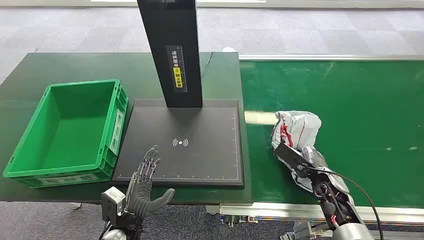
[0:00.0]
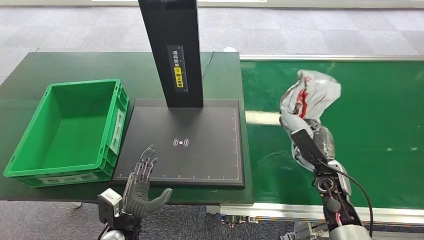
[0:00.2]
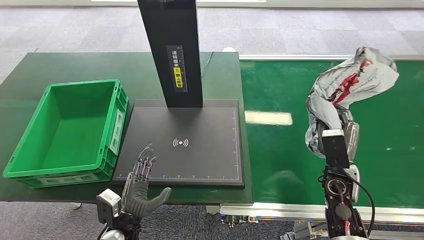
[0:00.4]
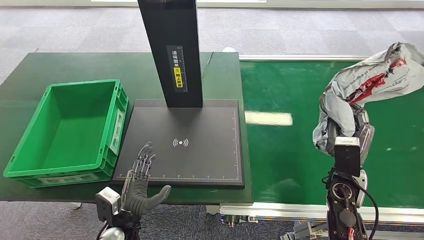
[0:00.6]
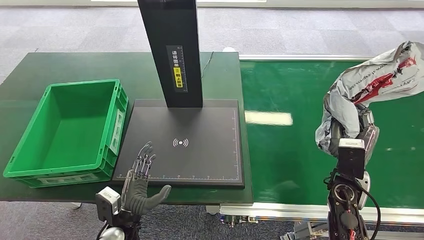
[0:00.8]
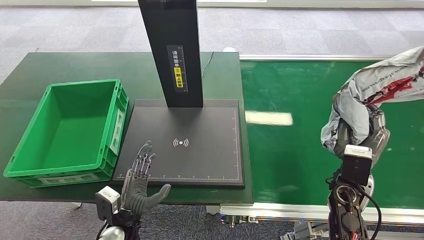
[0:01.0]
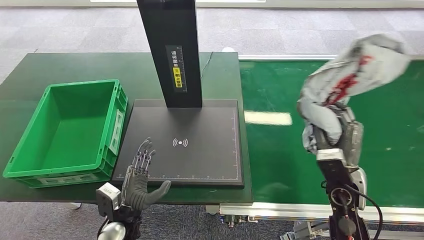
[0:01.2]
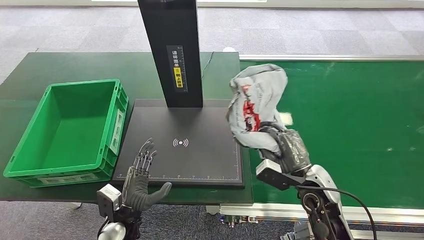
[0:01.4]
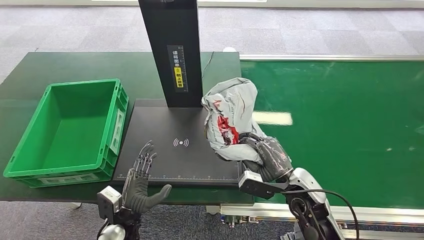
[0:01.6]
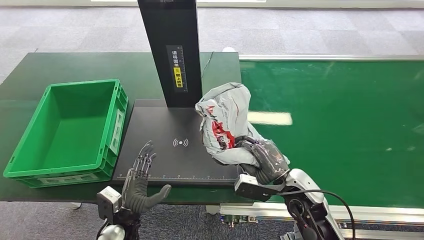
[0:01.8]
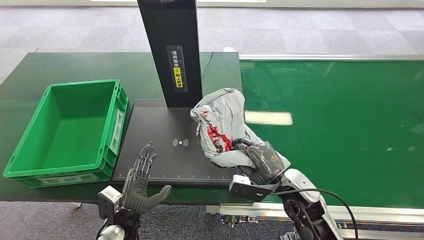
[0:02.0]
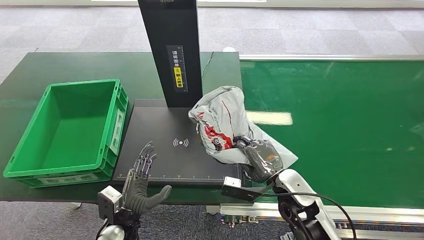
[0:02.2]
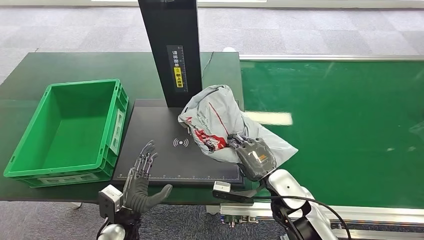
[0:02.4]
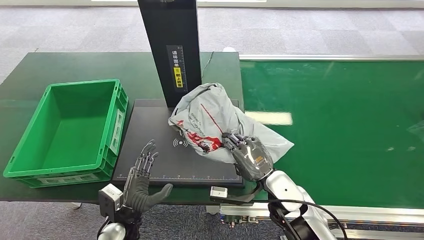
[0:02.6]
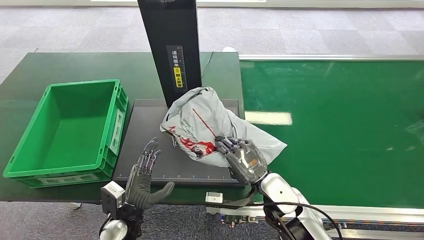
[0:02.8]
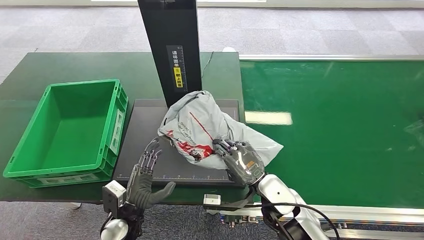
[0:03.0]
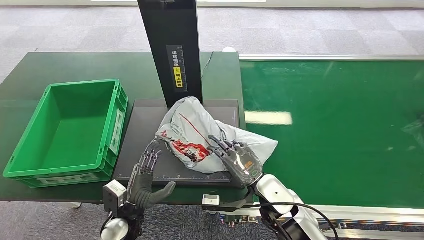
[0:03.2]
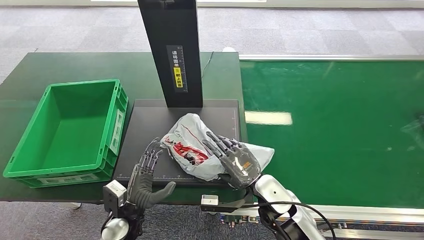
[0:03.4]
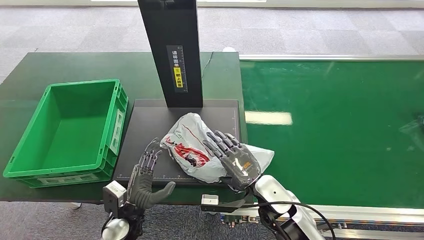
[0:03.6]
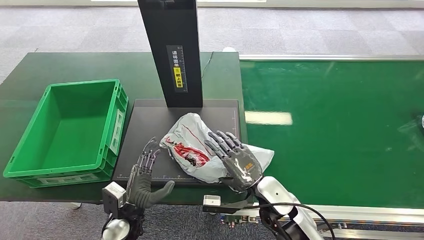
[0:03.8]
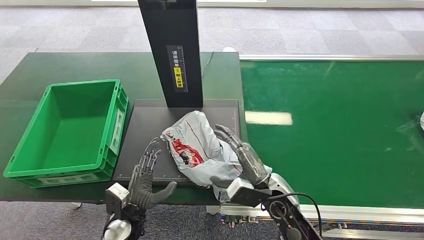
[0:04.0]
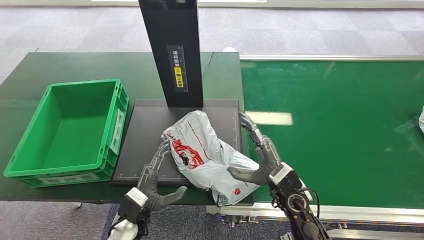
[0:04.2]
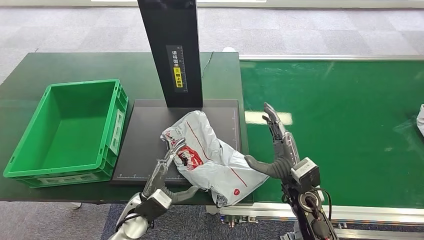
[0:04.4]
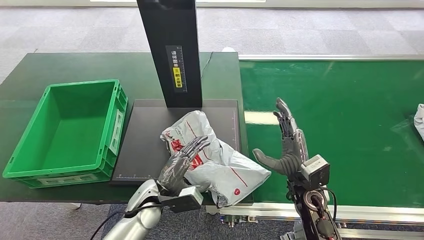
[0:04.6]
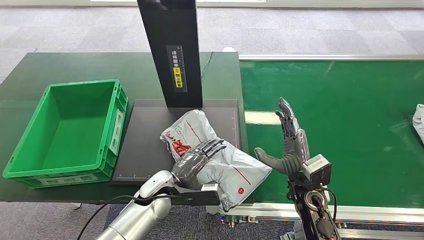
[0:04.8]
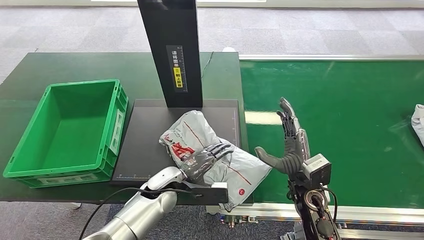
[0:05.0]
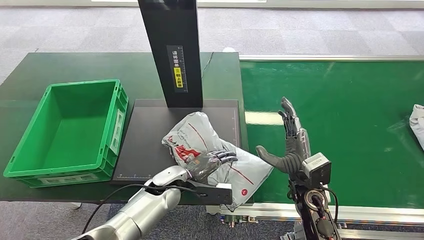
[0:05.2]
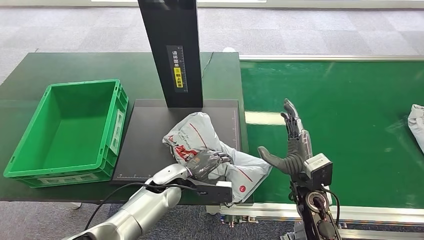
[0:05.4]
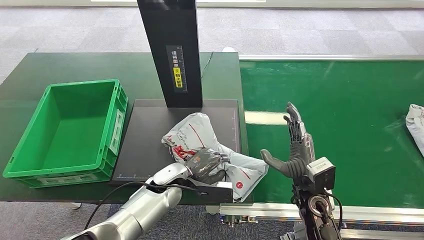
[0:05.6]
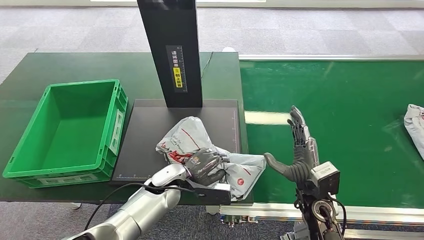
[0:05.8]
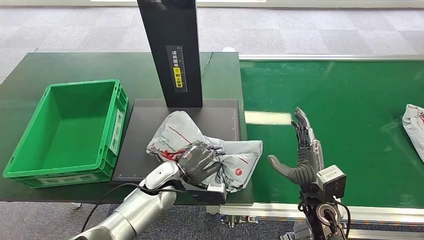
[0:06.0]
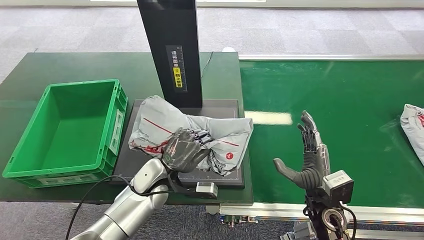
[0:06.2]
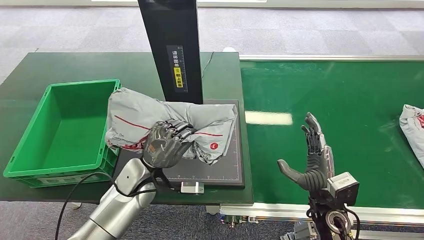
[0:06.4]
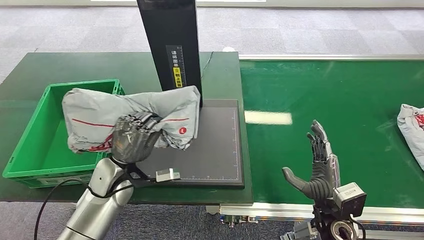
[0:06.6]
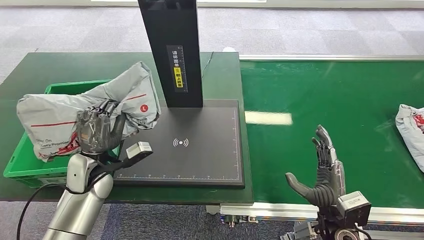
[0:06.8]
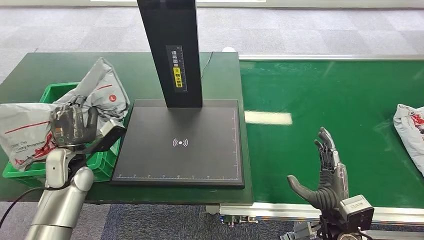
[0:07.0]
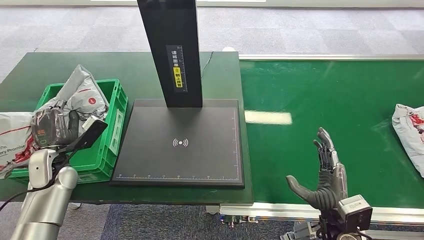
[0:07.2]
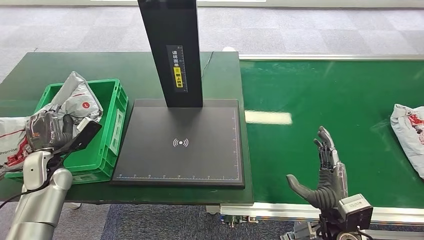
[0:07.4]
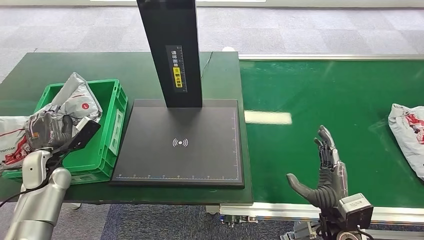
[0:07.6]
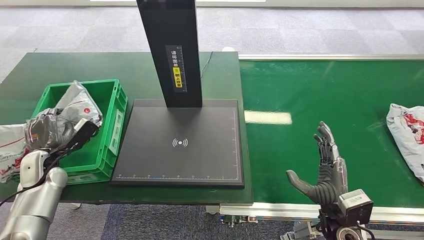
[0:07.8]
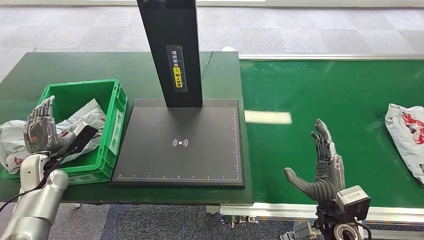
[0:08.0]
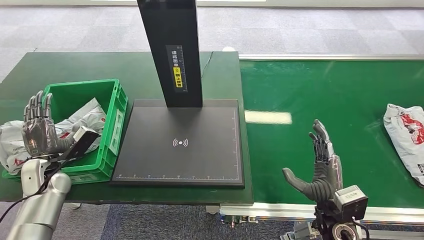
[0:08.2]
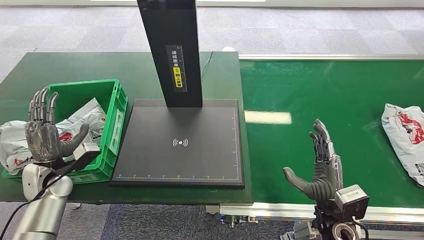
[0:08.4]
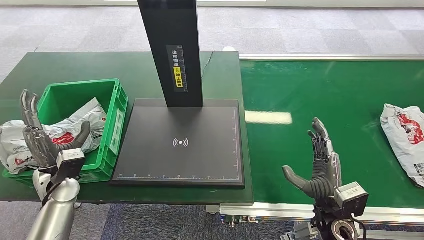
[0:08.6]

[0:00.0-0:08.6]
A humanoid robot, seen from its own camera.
Step, 0:00.0 to 0:00.6: Pick up the package from the conveyor belt.
0:01.4 to 0:02.8: The right hand shifts about 10 cm to the left.
0:04.4 to 0:05.8: The left hand heads forward and to the right, covering some 10 cm.

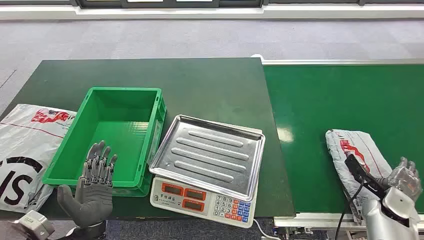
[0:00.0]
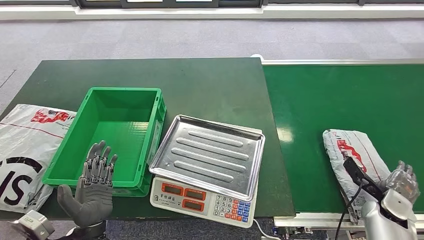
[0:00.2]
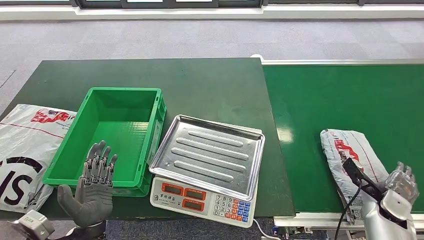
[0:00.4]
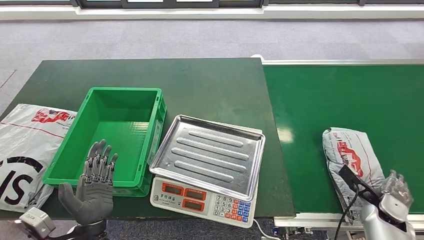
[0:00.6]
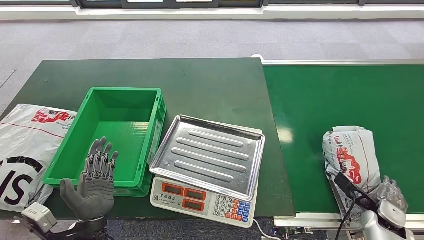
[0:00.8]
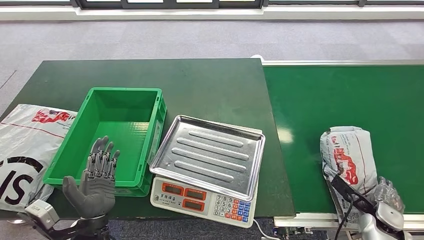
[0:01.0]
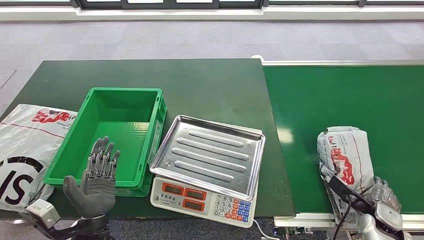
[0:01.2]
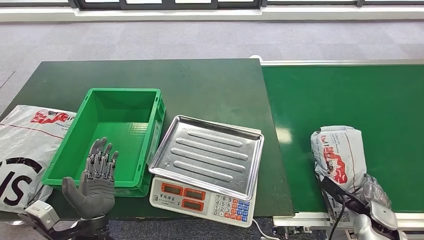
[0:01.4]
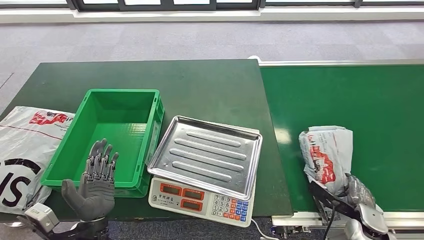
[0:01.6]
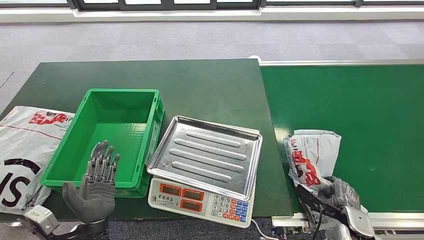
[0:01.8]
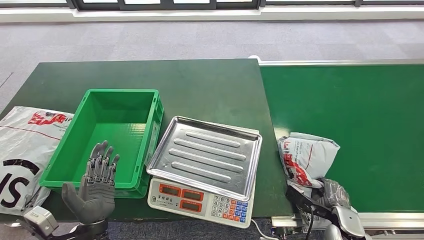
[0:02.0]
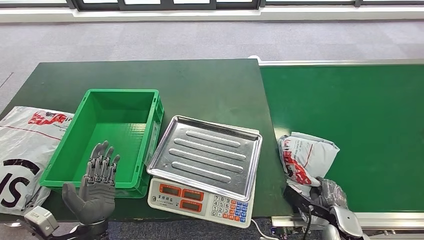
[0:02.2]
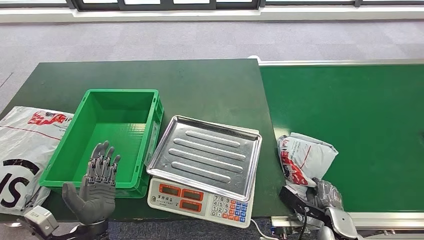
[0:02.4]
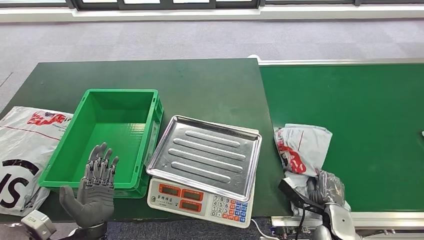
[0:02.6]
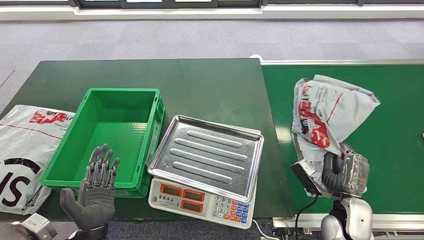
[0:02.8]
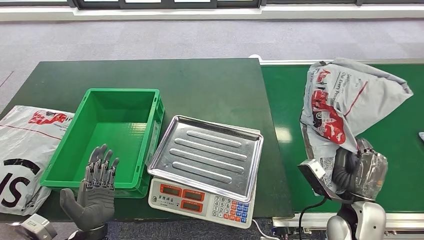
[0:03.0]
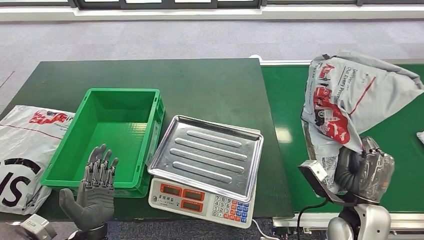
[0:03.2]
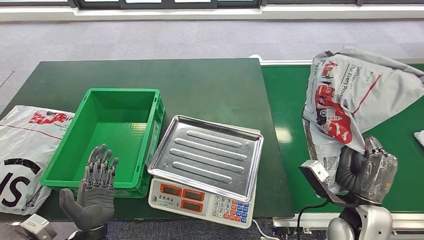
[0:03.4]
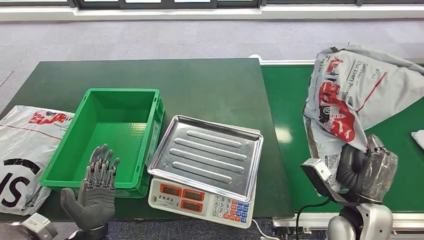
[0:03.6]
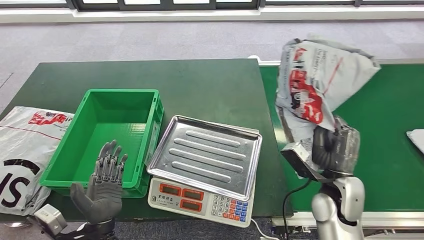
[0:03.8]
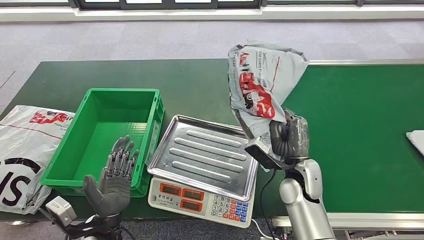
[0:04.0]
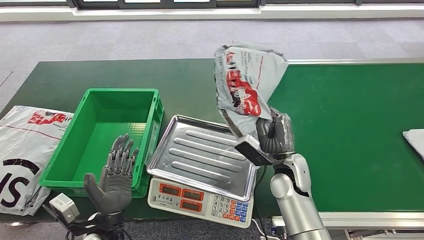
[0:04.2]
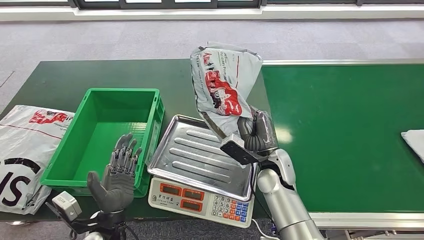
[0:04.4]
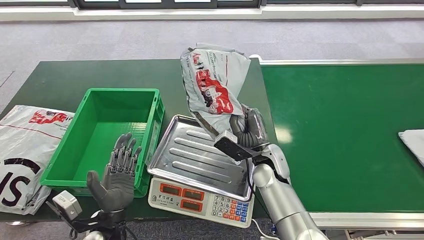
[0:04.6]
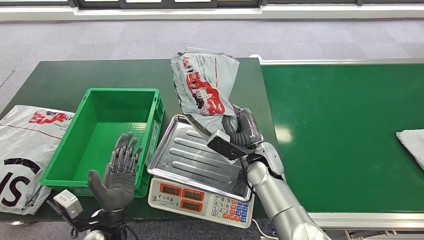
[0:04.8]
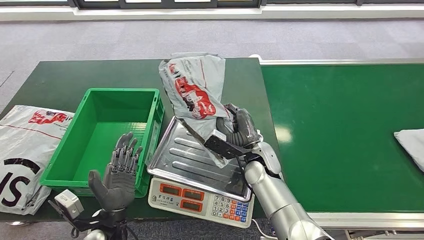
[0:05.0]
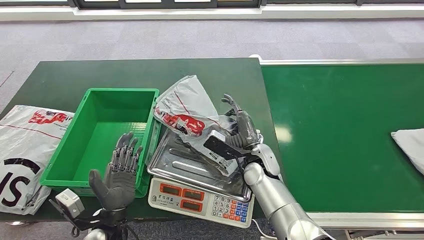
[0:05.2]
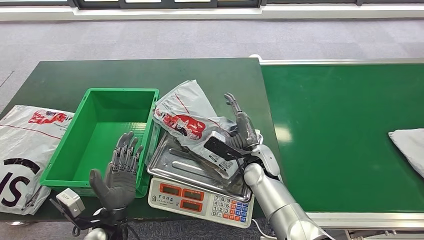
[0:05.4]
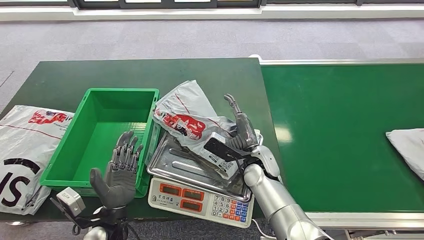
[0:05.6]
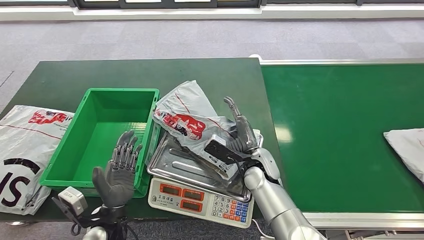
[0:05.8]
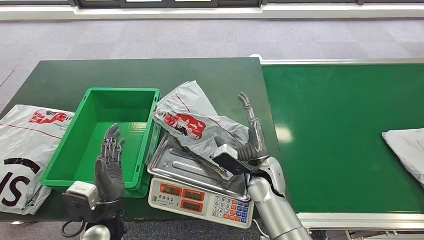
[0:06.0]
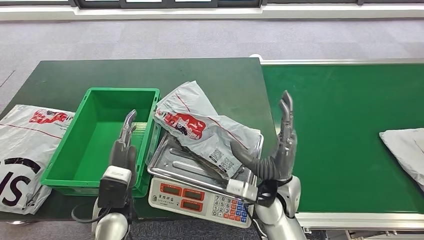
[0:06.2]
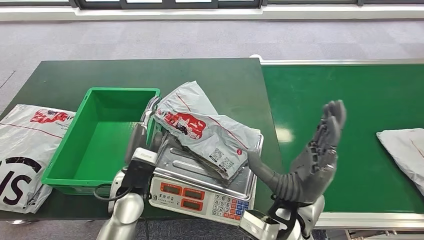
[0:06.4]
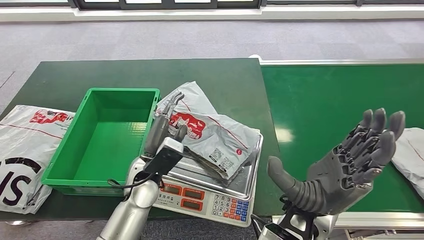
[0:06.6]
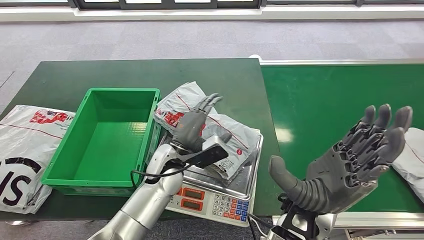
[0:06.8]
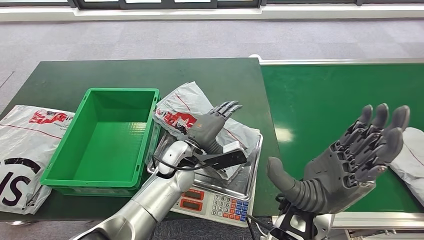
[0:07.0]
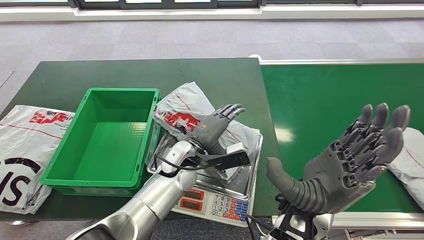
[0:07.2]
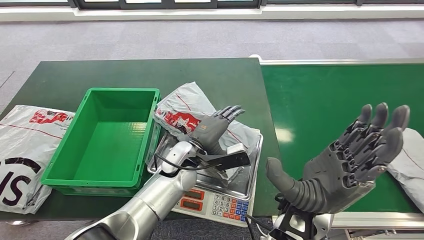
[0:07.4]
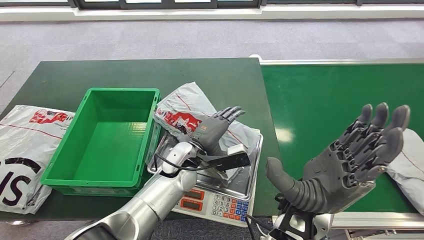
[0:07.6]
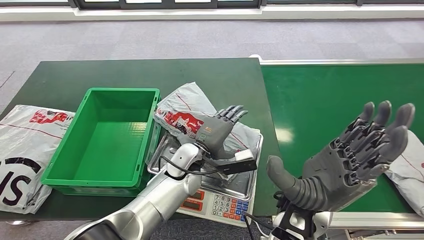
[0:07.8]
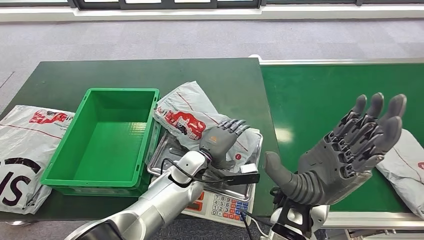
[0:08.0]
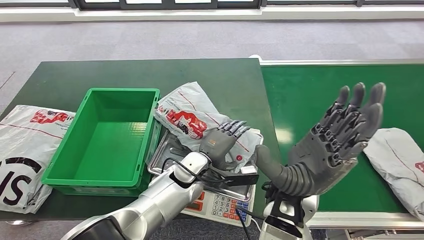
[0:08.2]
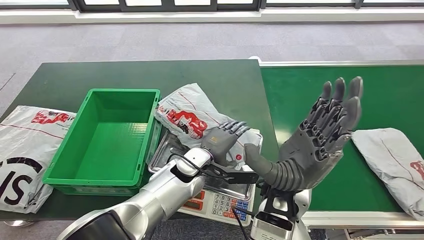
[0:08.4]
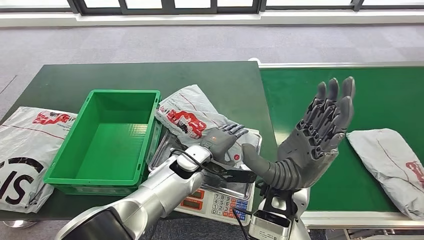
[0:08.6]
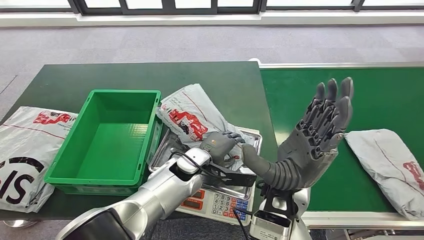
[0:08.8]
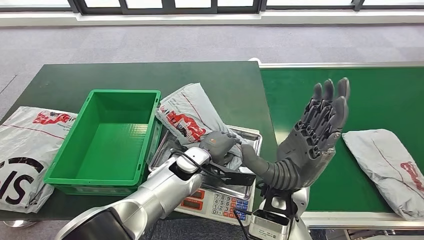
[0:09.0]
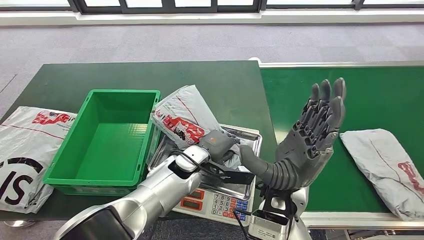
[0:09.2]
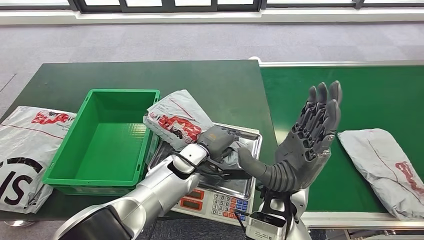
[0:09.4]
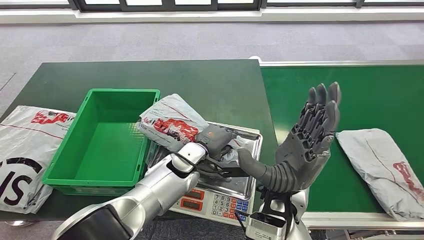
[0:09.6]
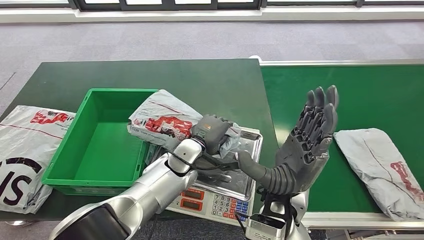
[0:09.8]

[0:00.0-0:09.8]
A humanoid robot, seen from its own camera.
Step, 0:00.0 to 0:02.8: Pick up the package from the conveyor belt.
Step, 0:03.2 to 0:05.6: Place the package onto the inbound machine.
Step, 0:05.8 to 0:09.8: Pick up the package from the inbound machine.
0:04.2 to 0:05.6: The right hand moves to the left, roughly 5 cm.
0:05.6 to 0:07.0: The left hand goes approximately 20 cm forward and to the right, while the right hand travels upward and backward by some 20 cm.
